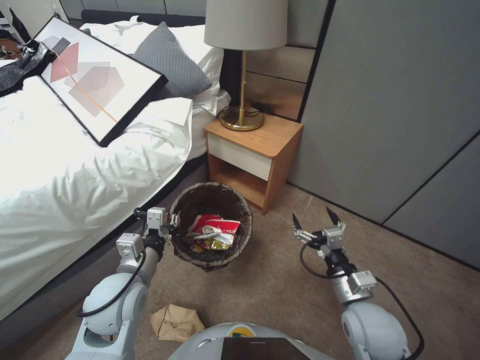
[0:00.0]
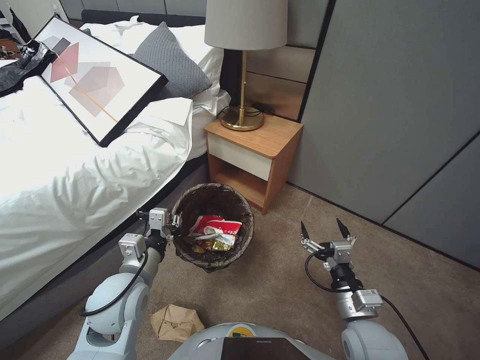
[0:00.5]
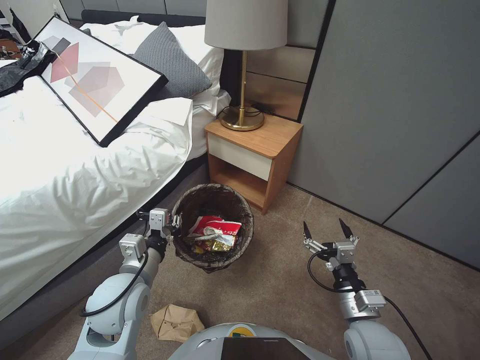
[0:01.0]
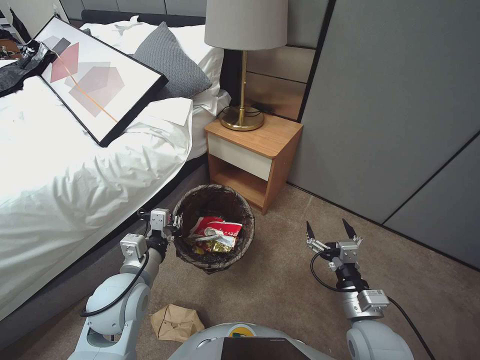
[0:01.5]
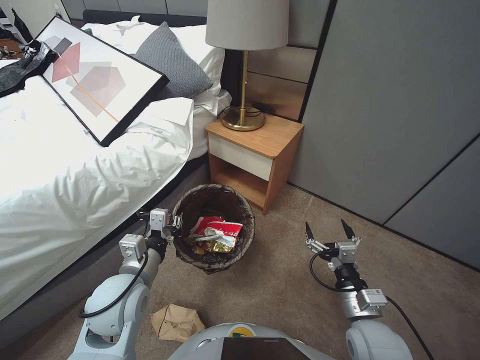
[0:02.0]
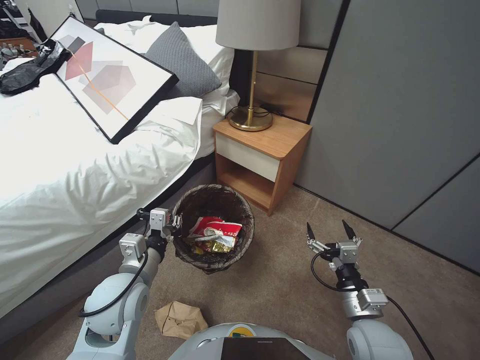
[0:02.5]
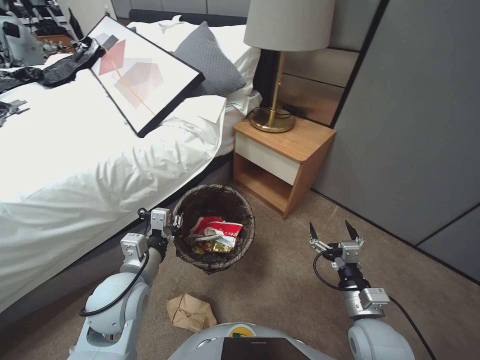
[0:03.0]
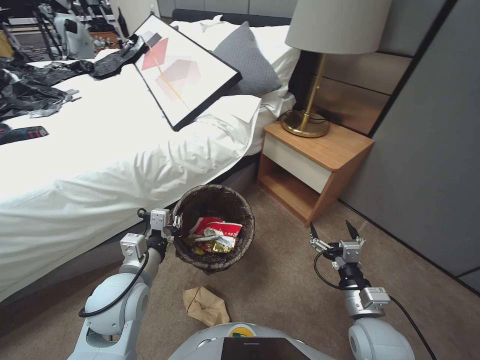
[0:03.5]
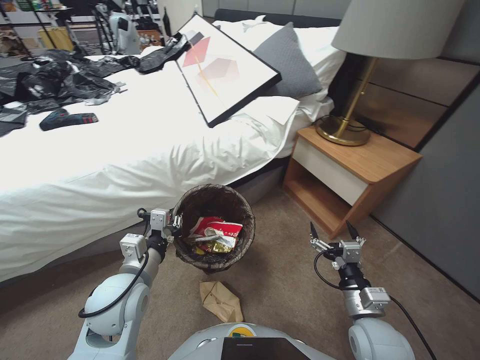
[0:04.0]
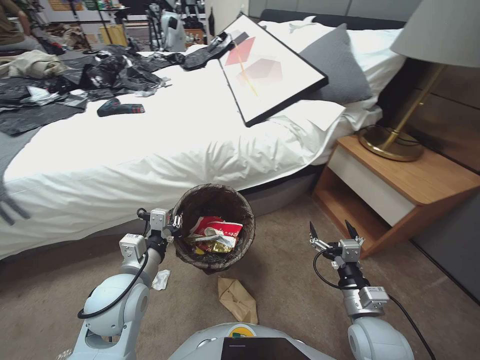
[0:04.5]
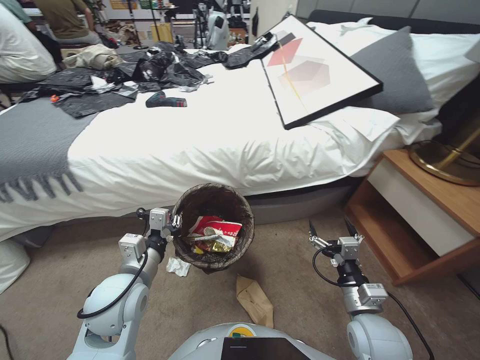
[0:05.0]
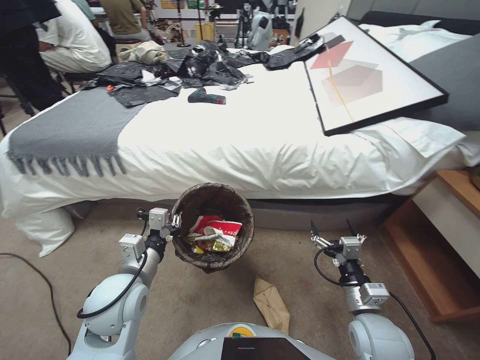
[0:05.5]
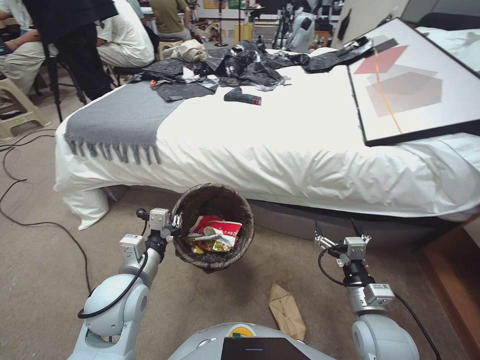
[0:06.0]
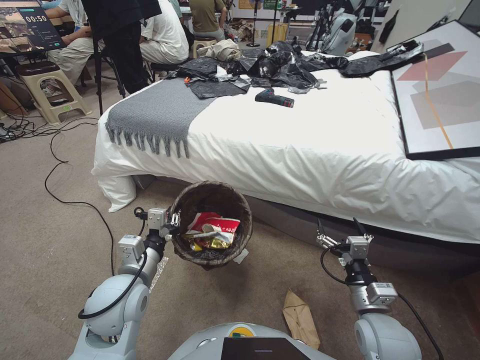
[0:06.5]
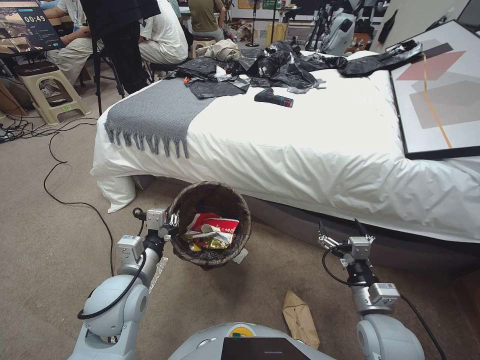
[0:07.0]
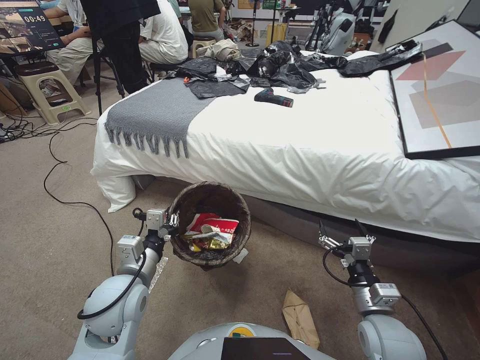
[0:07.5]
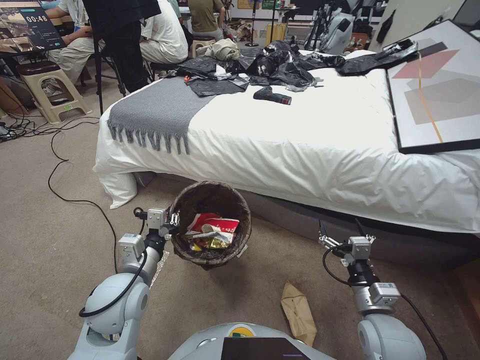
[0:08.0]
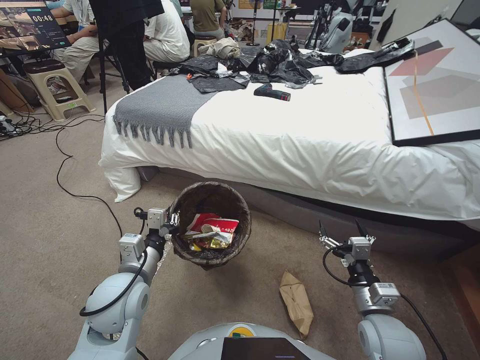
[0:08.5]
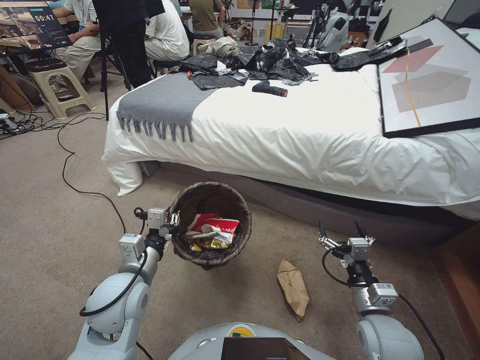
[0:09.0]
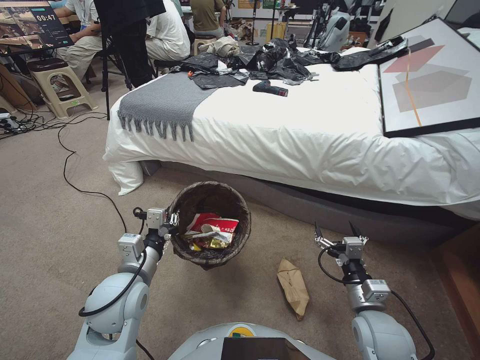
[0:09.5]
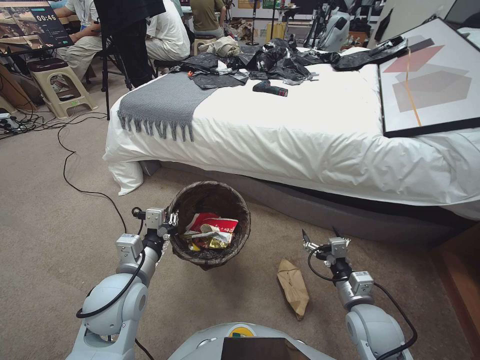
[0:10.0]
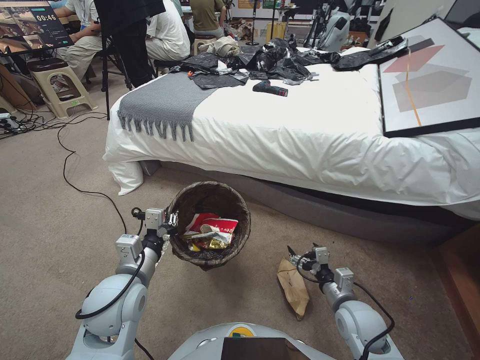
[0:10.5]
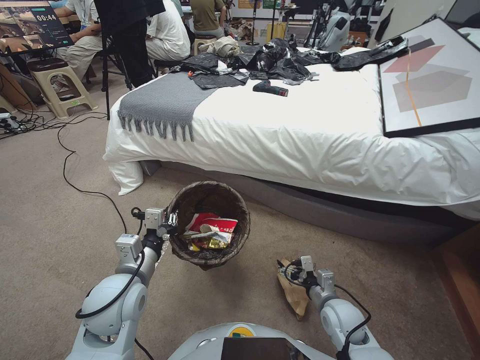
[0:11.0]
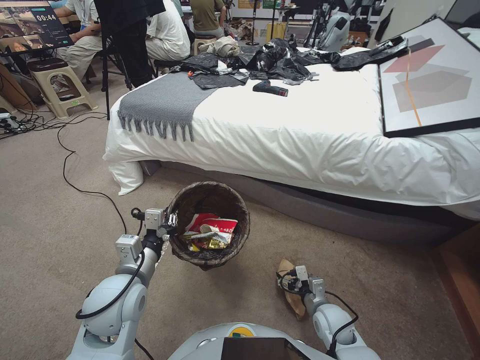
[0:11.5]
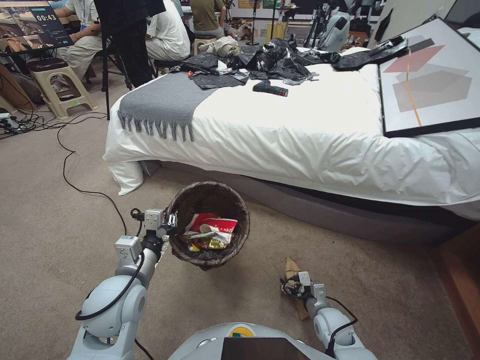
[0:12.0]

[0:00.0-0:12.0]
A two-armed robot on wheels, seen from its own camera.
Task of the whole recording: Pick up the trash bin, then pick up the garbage from the floor and place it into the trash bin.
0:00.0 to 0:02.0: There are only small adjustments of the grippers.
0:10.0 to 0:12.0: The right gripper is displaced downward by some 15 cm.

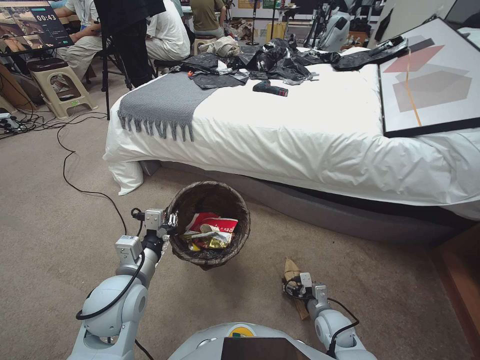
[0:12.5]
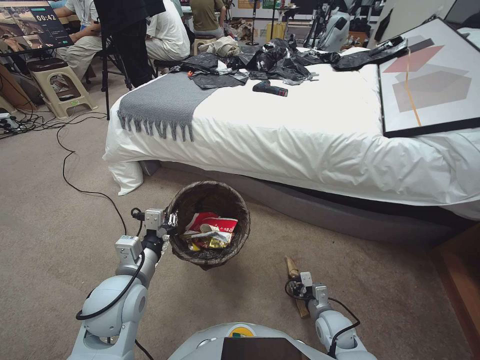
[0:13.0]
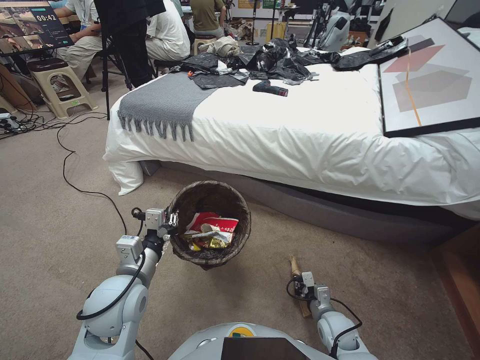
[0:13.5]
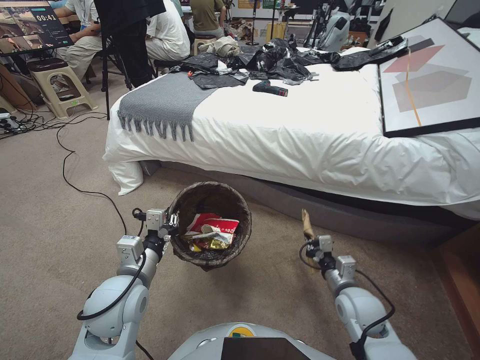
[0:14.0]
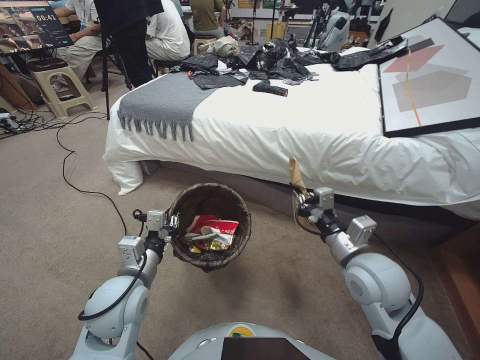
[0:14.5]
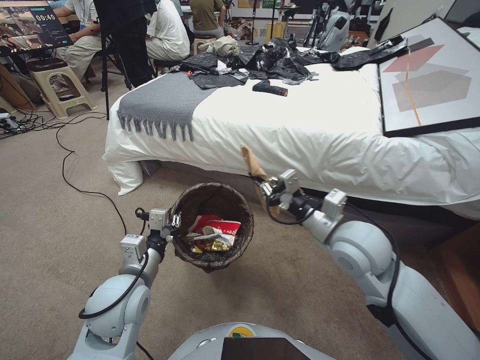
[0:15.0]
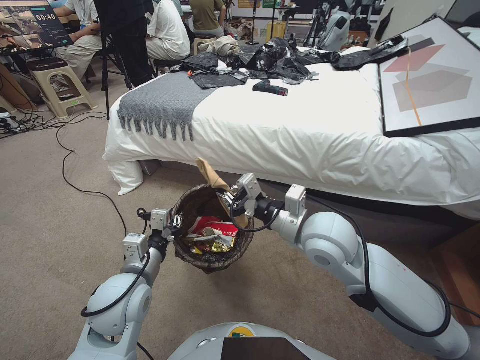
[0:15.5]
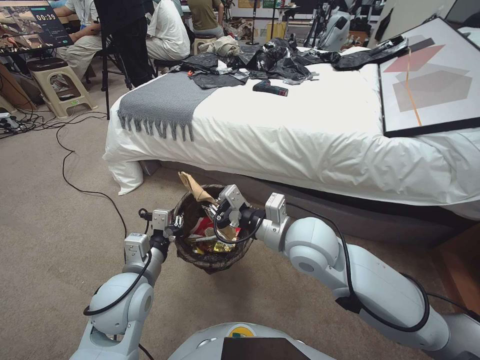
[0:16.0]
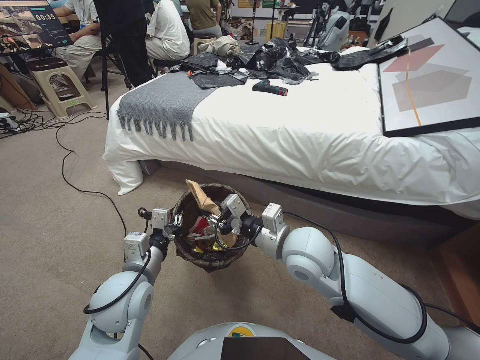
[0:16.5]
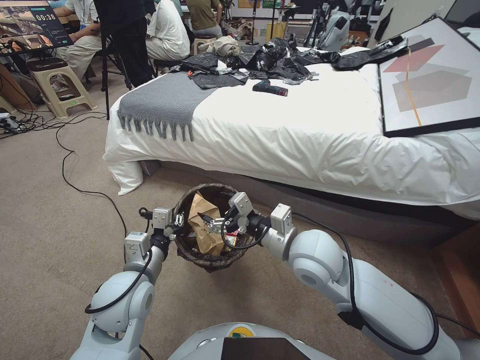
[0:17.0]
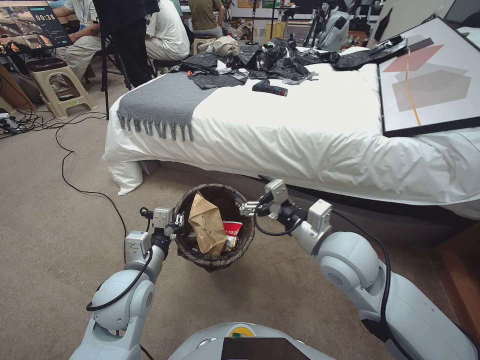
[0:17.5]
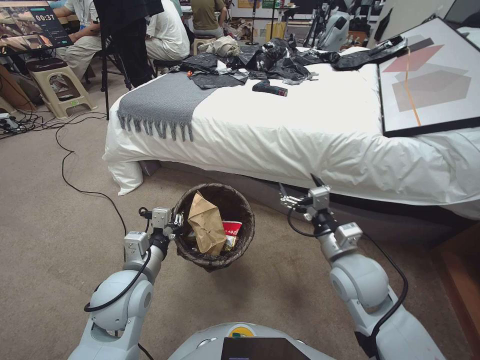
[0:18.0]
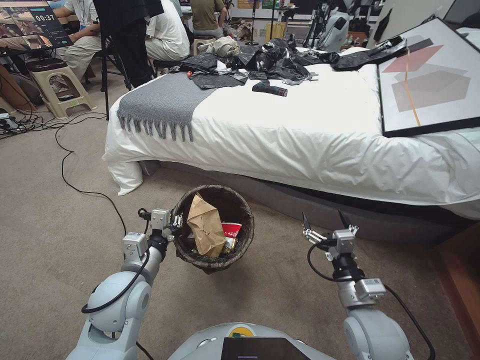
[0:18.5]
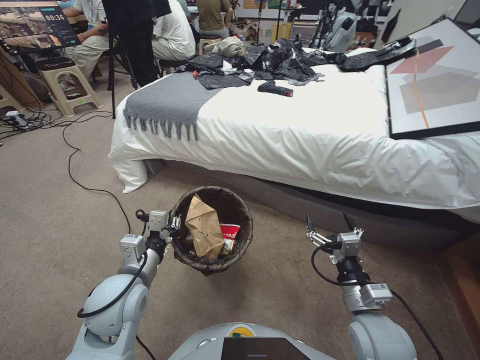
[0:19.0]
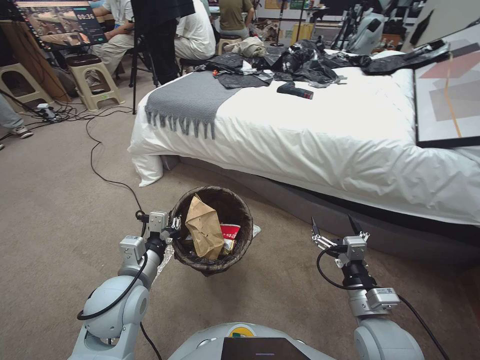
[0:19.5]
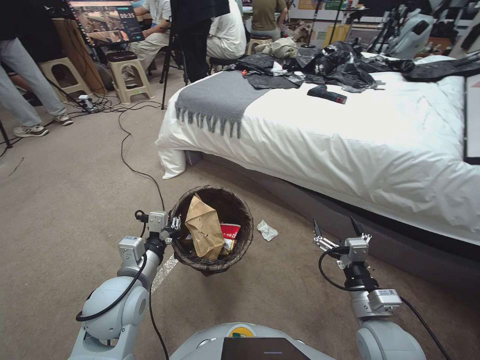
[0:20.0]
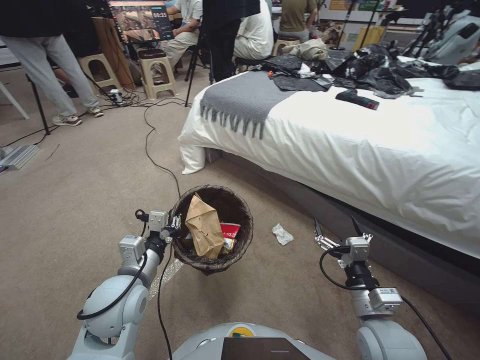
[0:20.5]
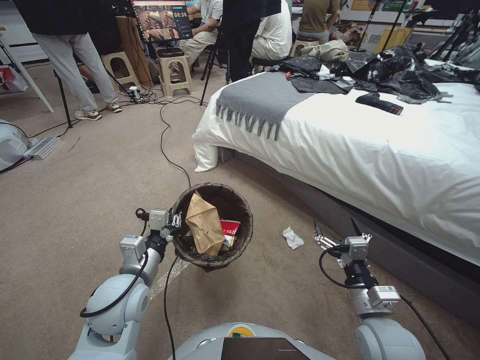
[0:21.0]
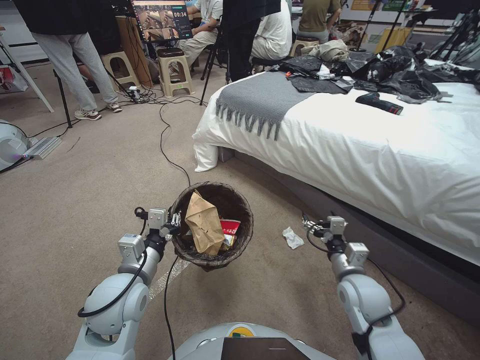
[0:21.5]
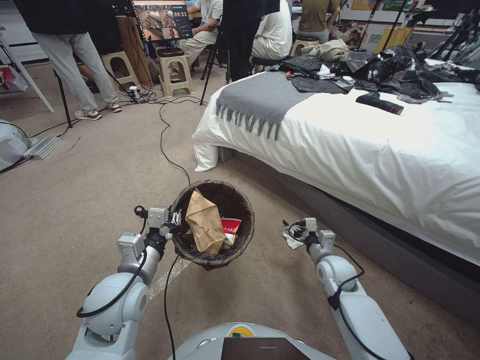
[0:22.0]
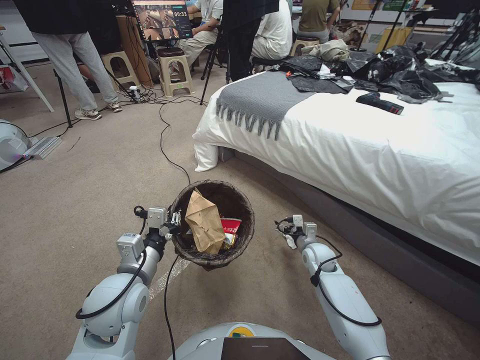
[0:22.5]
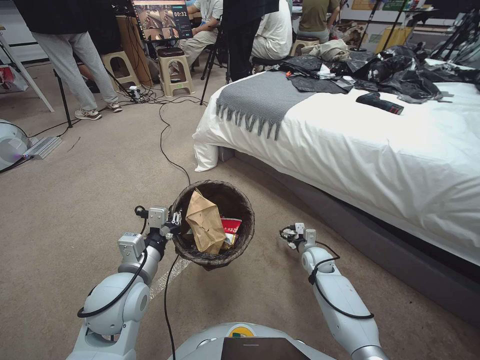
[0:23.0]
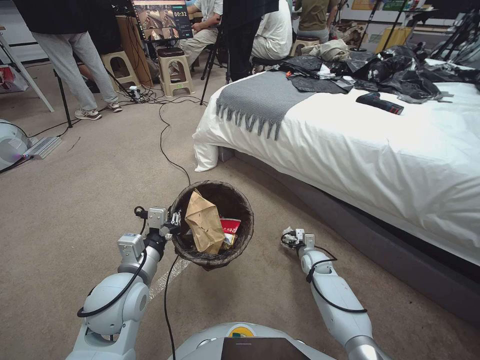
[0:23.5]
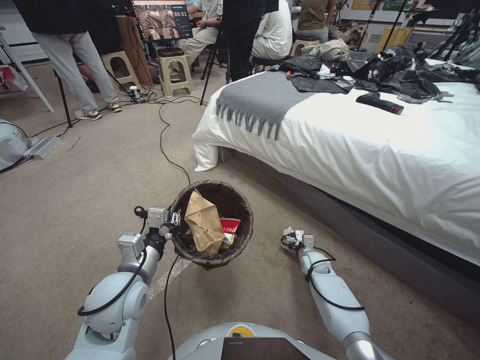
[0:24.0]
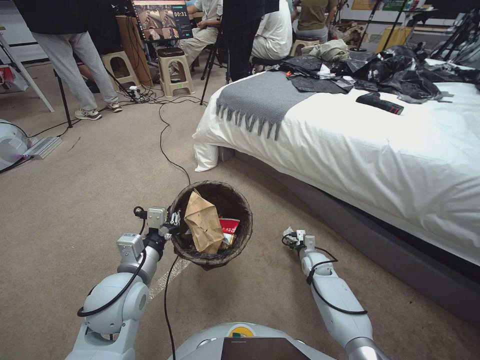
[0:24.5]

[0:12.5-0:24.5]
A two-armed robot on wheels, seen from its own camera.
Task of the whole recording: Pick up the trash bin, then pick up the garbage from the floor and place it into the trash bin.
0:12.5 to 0:14.5: The right gripper shifts roughly 30 cm upward, and closes up.
0:14.5 to 0:16.5: The right gripper moves to the left, about 15 cm.
0:16.5 to 0:18.5: The right gripper heads to the right, downward and backward, covering approximately 20 cm, and opens.
0:20.5 to 0:22.5: The right gripper moves forward and downward, roughly 25 cm.
0:22.5 to 0:24.5: The right gripper shifts about 10 cm downward.

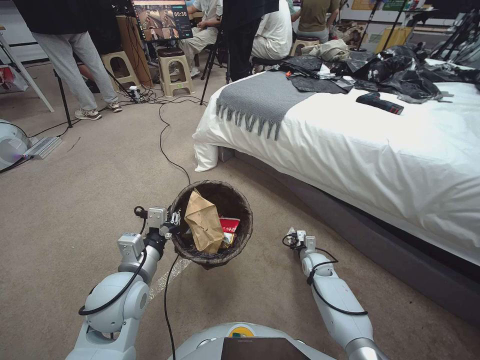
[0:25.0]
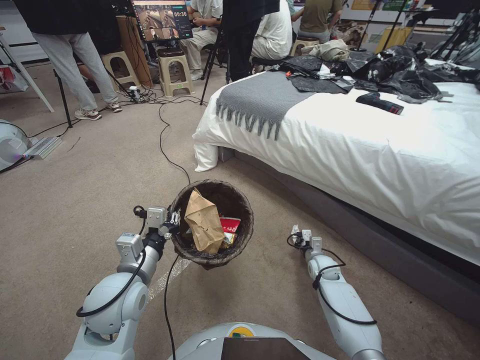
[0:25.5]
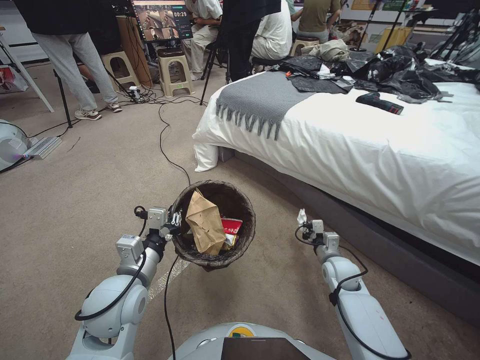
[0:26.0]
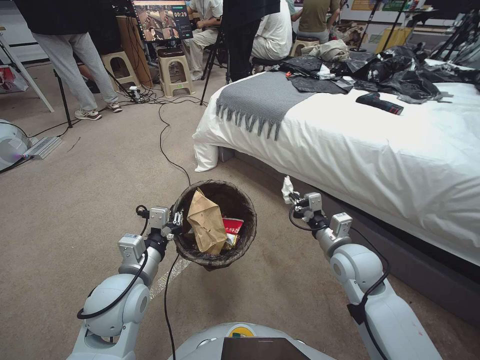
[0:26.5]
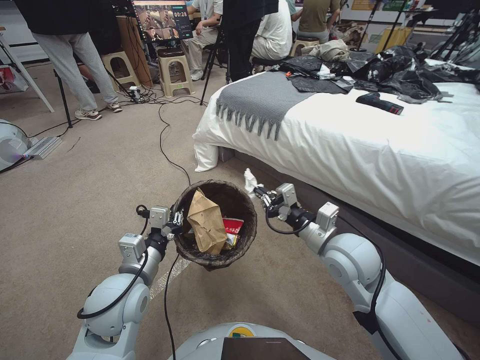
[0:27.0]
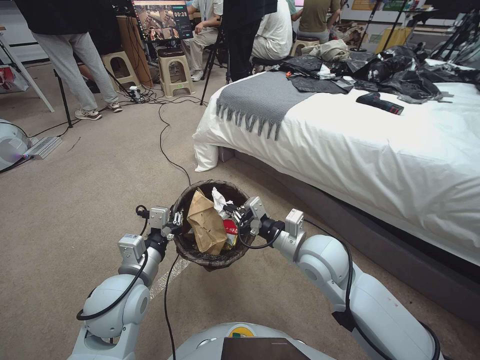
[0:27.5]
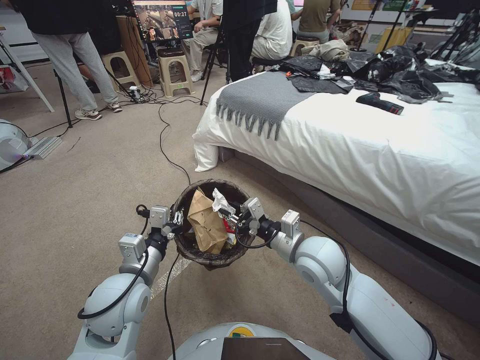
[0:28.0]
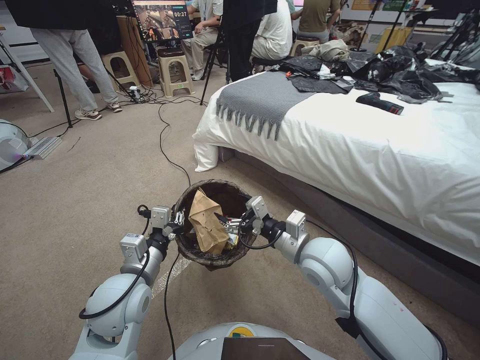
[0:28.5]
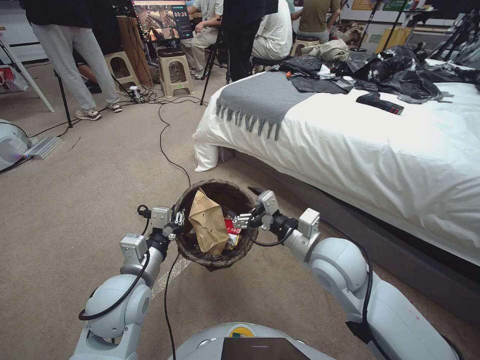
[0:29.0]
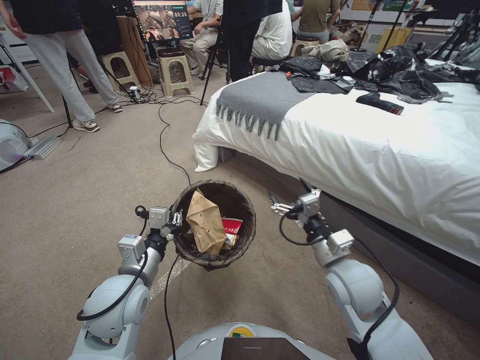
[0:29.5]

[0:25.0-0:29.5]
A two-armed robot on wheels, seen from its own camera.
Task of the whole recording: Pick up the trash bin, then pick up the garbage from the floor and place it into the trash bin.
0:25.0 to 0:27.0: The right gripper shifts approximately 30 cm upward.
0:27.0 to 0:29.5: The right gripper opens.
